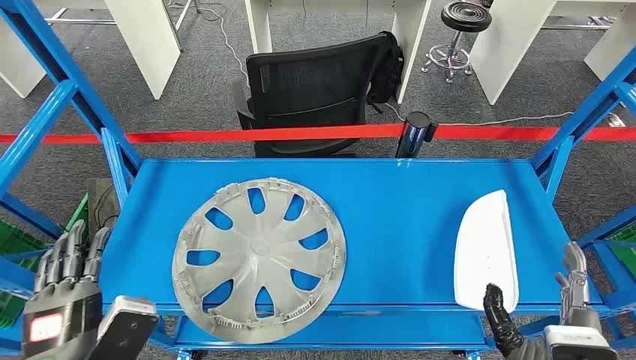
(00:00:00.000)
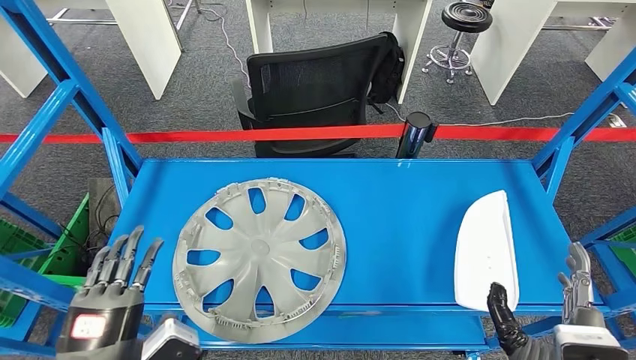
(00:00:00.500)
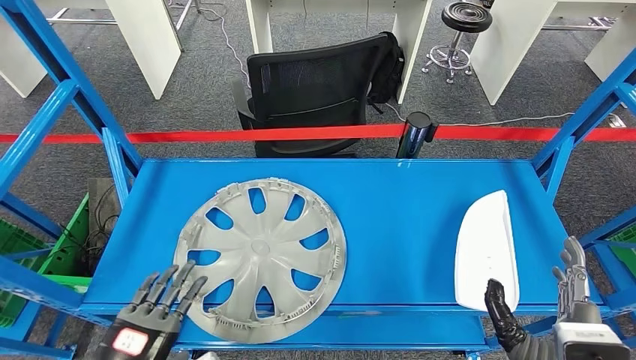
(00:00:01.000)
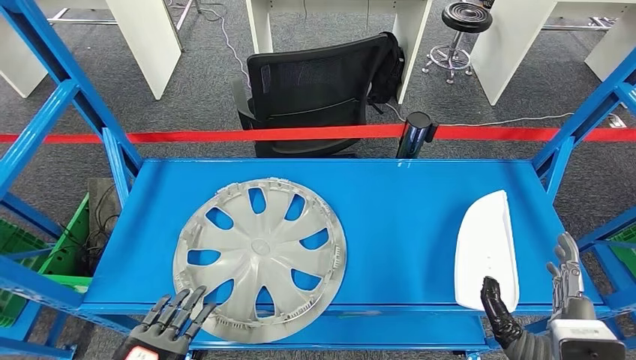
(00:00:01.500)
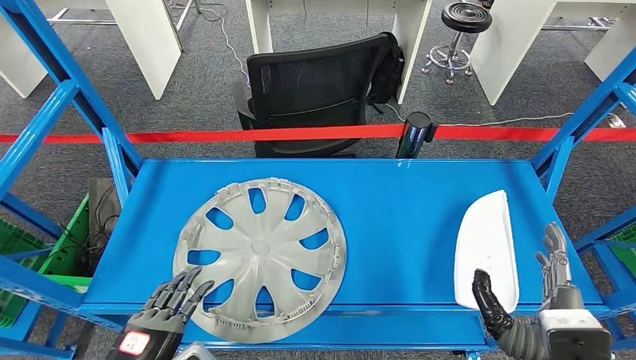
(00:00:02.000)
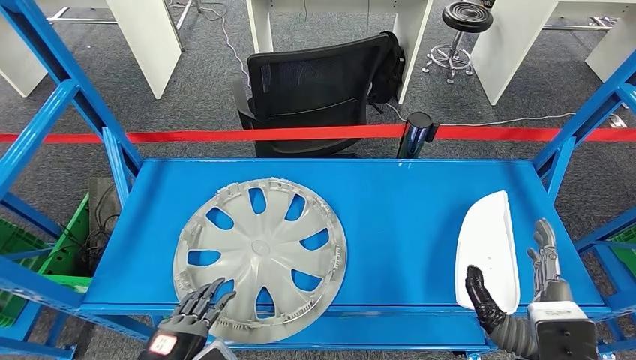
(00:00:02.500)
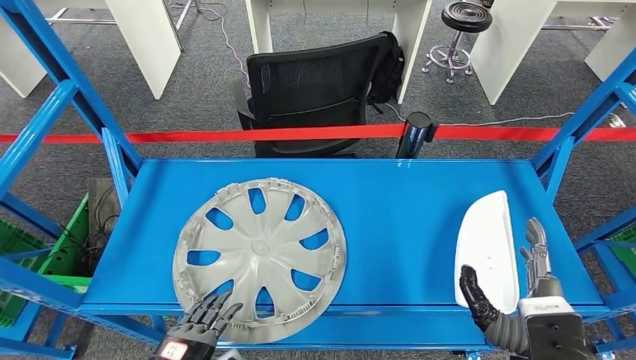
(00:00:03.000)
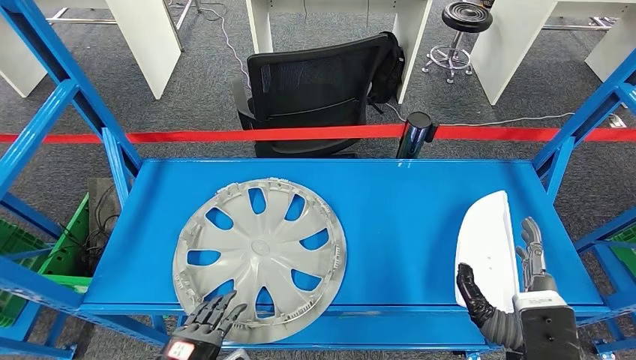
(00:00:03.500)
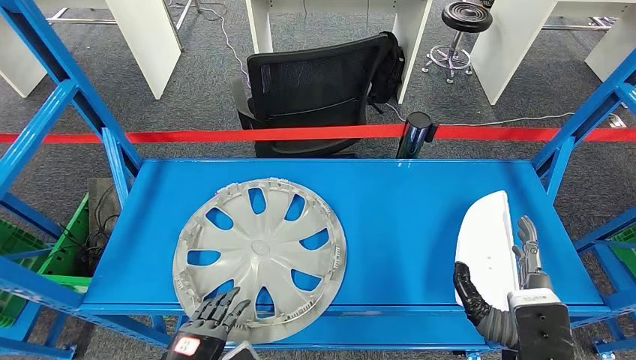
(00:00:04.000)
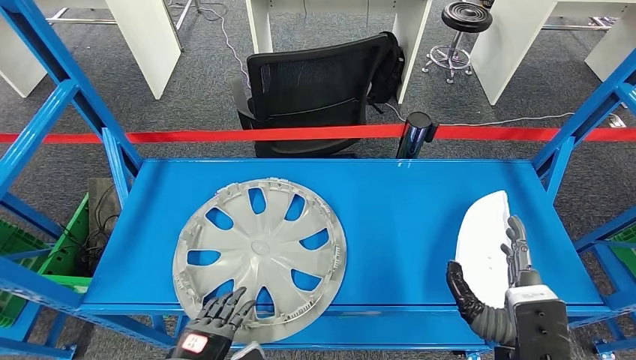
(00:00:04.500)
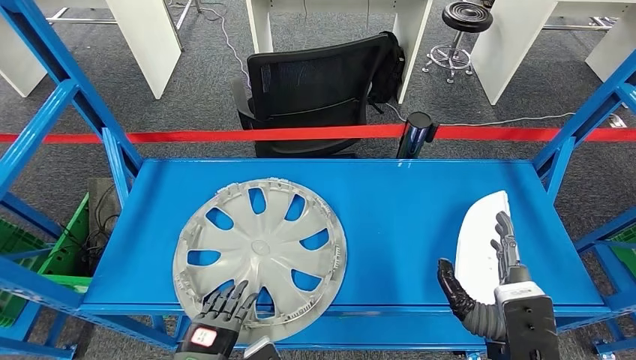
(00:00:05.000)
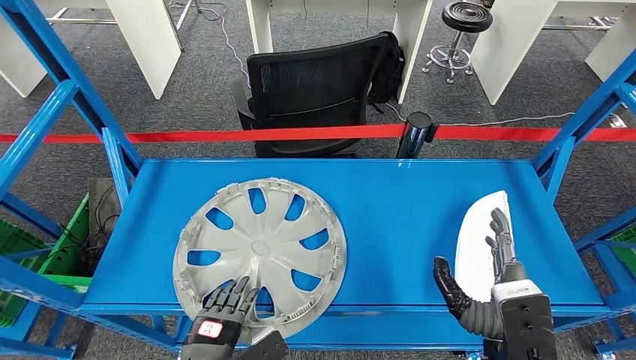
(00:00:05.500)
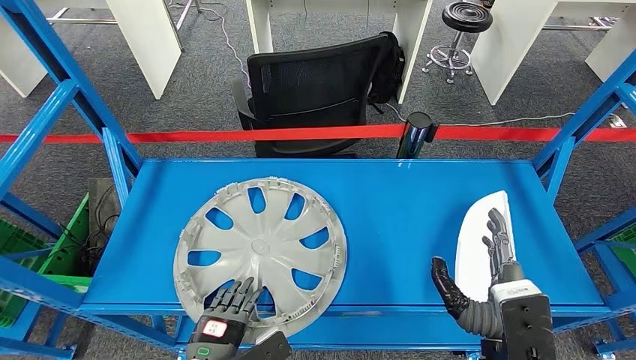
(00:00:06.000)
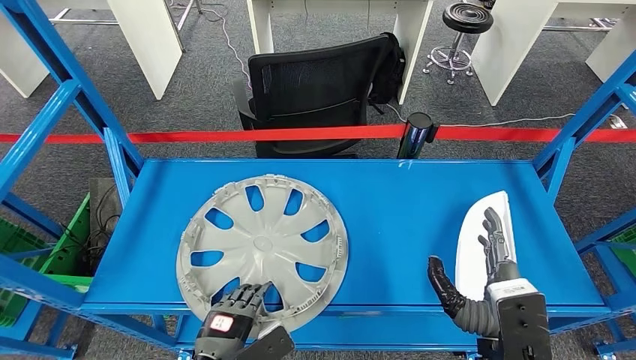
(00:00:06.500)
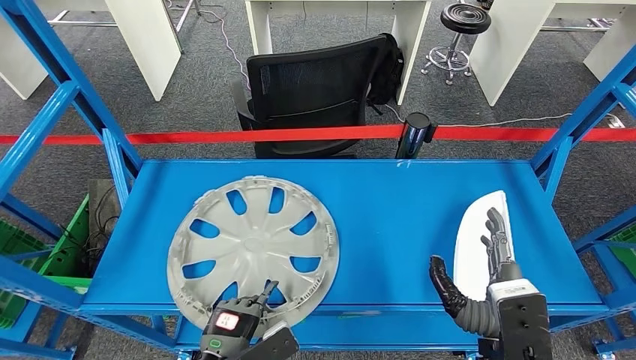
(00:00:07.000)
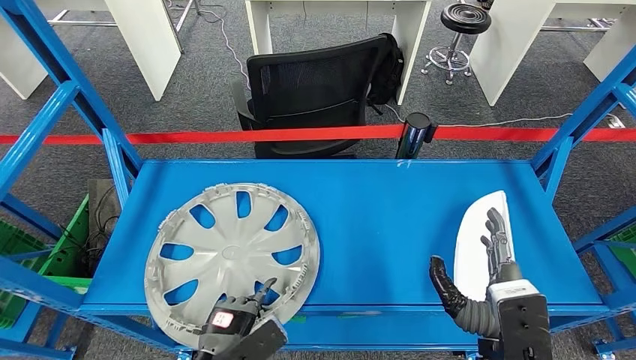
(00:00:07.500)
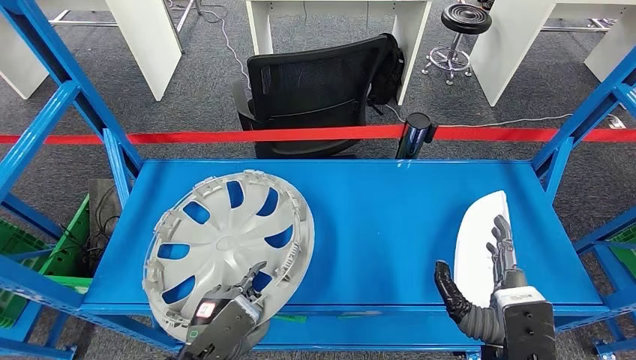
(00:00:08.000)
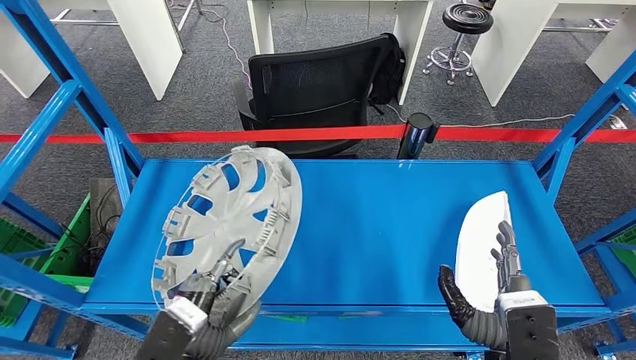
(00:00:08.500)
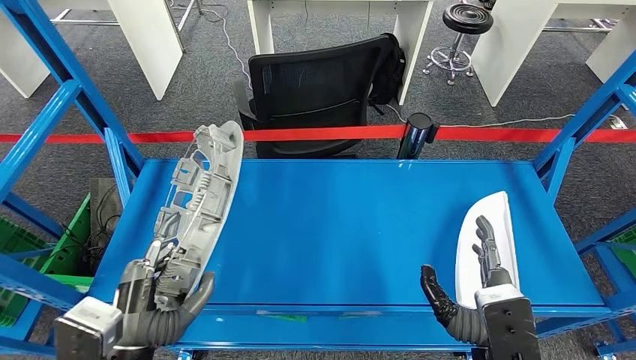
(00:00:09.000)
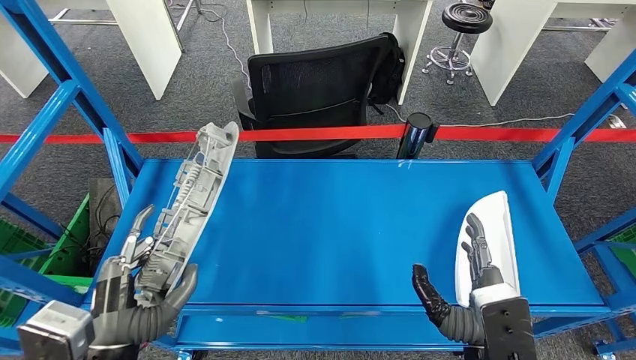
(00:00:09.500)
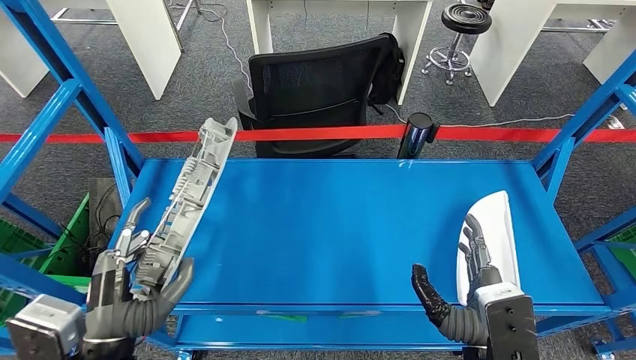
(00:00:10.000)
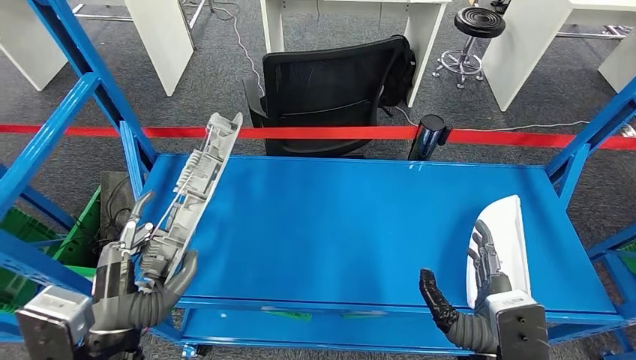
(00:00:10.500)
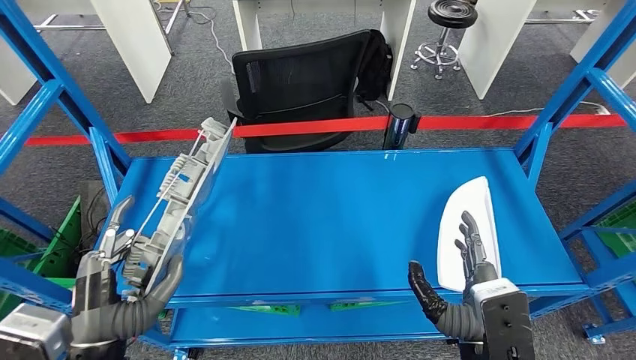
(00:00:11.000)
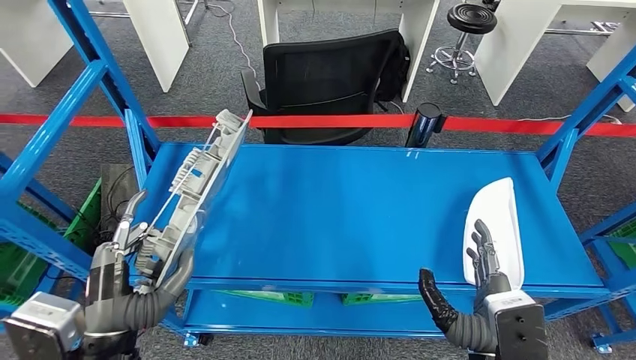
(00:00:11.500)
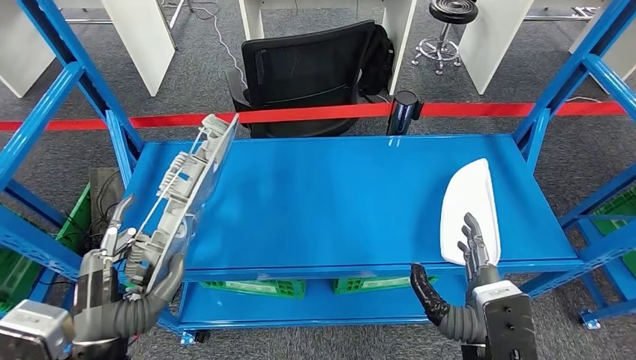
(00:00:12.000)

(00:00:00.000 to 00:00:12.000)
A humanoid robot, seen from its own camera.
Step, 00:00:00.000 - 00:00:11.500: Pick up the small component from the shelf.
00:00:02.000 - 00:00:04.000: The left hand travels downward by some 5 cm.
00:00:04.000 - 00:00:06.000: The left hand shifts by some 5 cm.

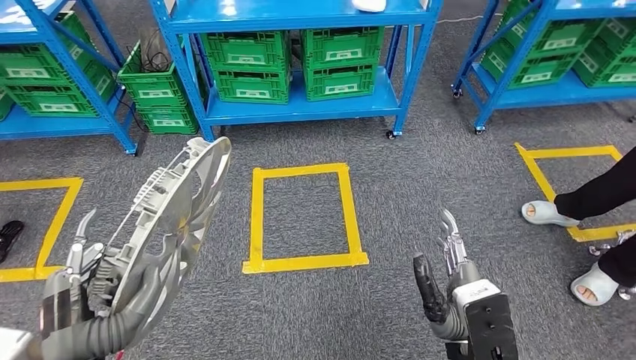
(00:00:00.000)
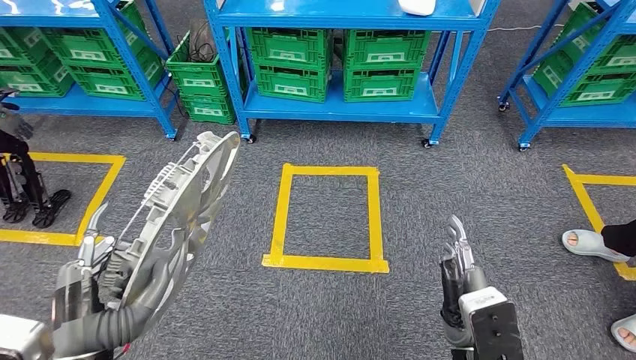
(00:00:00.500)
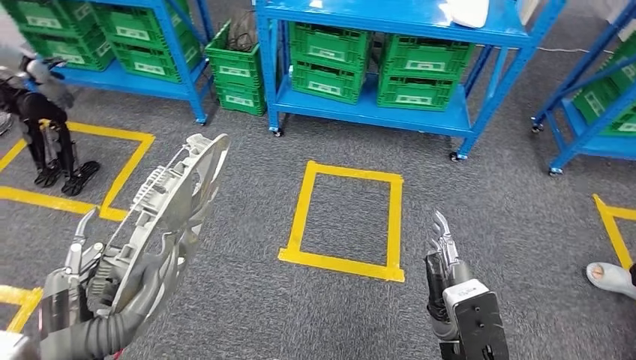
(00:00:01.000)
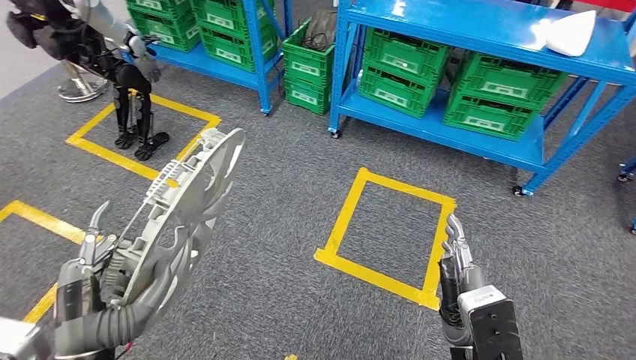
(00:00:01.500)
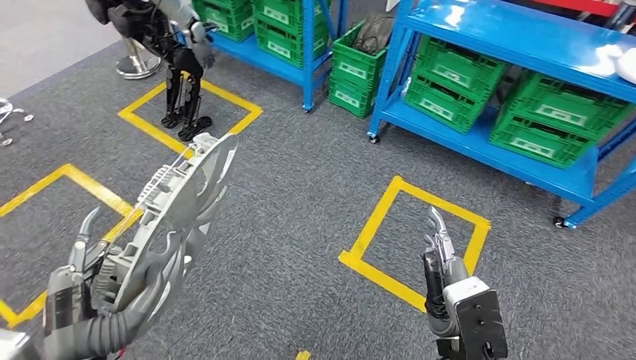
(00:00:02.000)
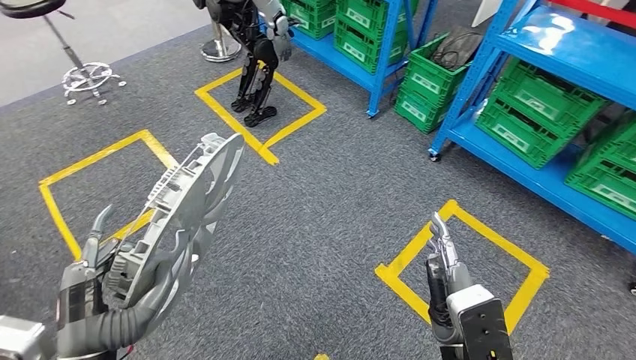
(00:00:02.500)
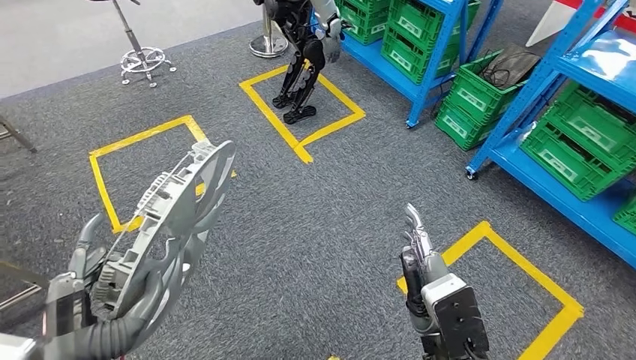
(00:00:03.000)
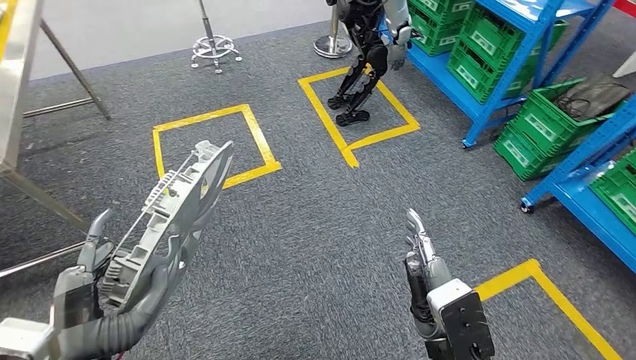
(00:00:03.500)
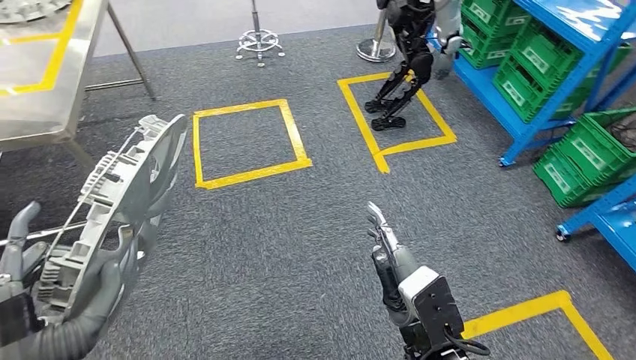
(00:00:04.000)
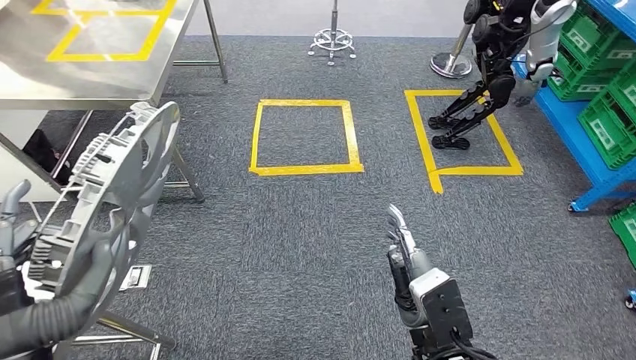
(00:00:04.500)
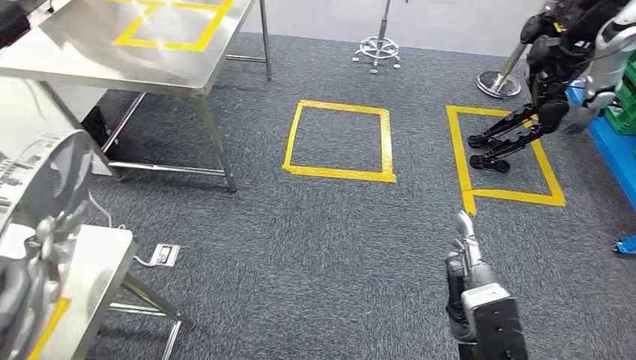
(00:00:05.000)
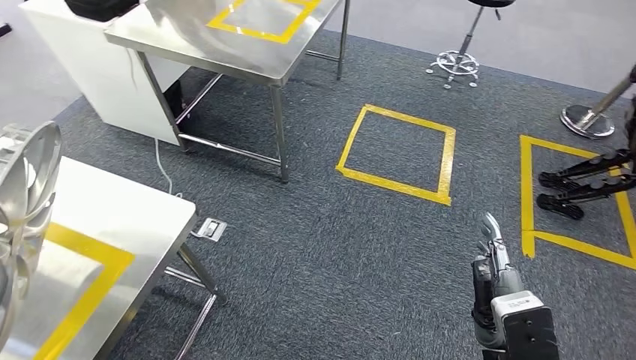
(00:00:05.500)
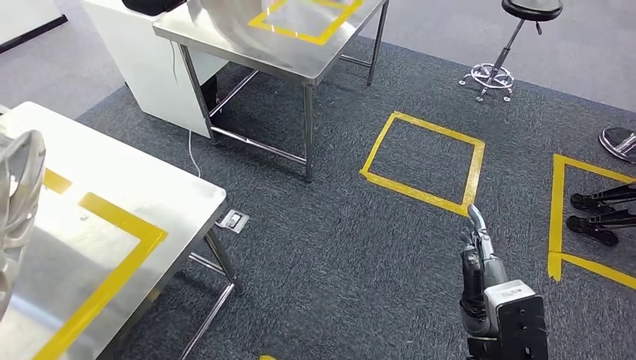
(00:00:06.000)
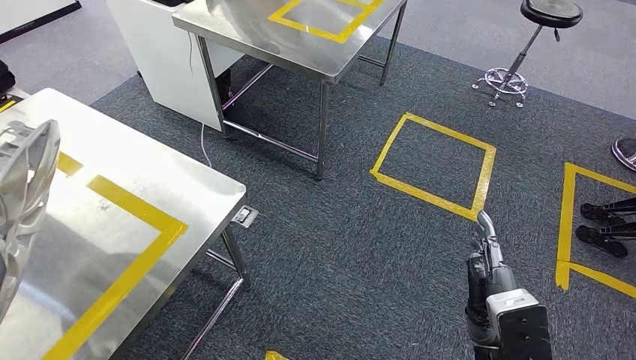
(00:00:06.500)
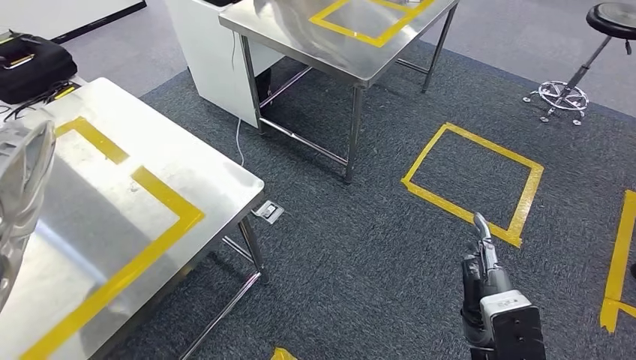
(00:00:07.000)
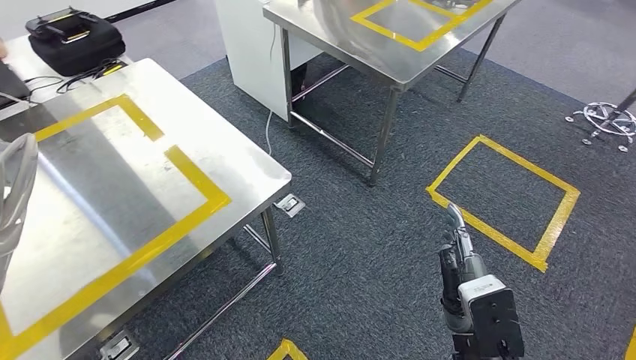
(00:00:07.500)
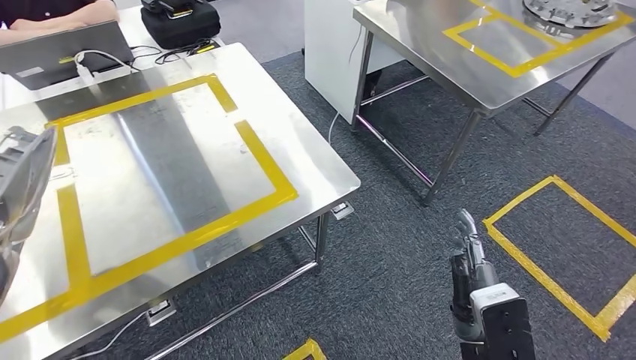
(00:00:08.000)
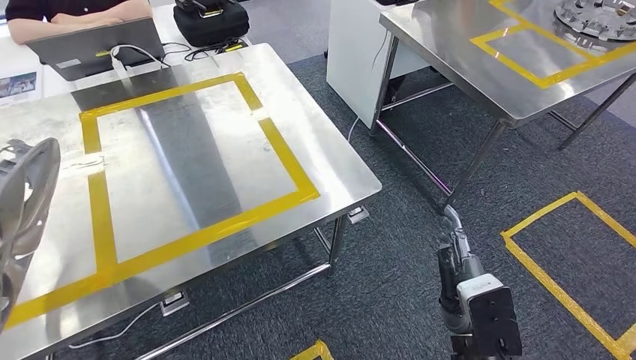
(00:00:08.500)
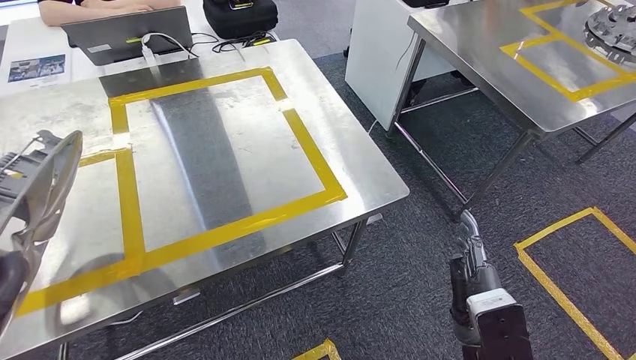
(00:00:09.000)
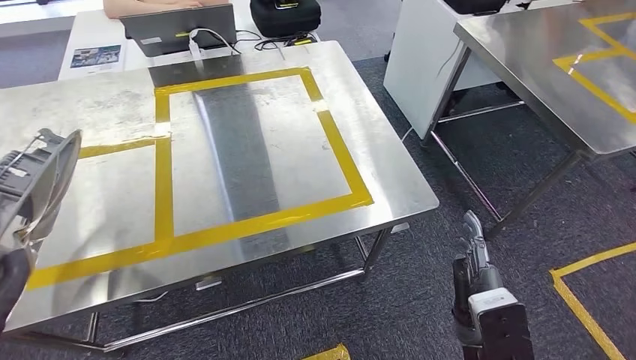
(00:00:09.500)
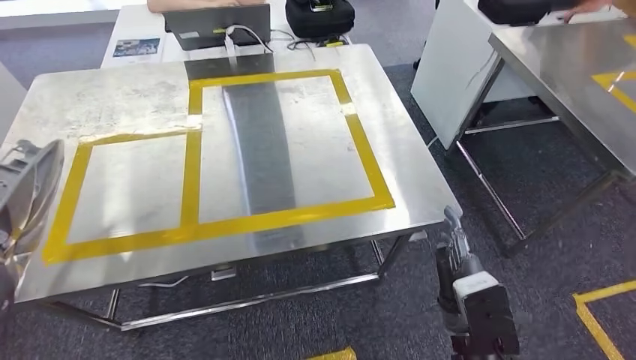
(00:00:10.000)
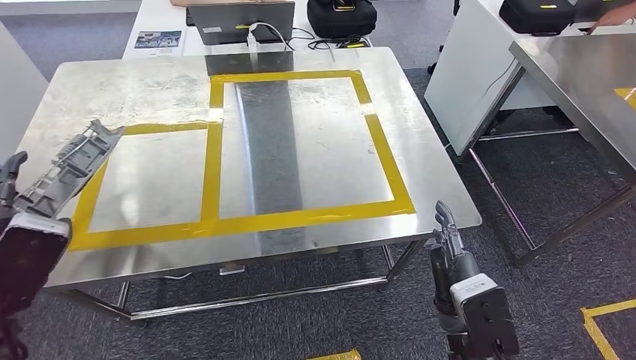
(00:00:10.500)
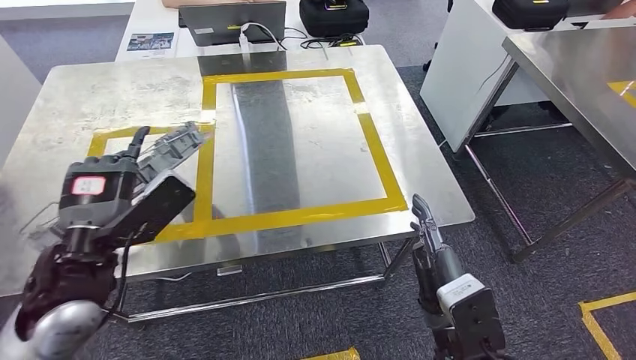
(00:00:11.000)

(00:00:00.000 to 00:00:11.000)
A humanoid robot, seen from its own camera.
Step, 00:00:00.000 - 00:00:10.000: Bring the small component to the front of the workbench.
